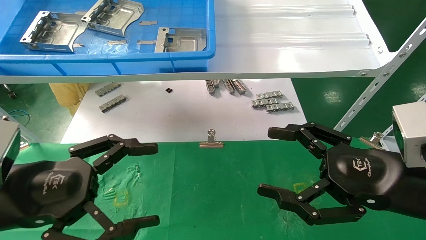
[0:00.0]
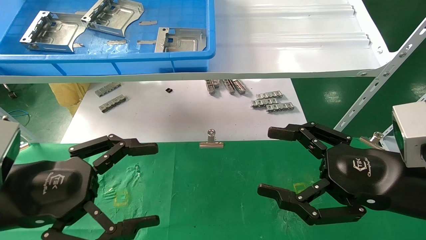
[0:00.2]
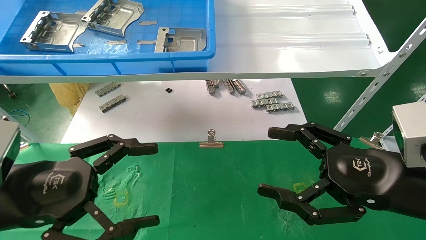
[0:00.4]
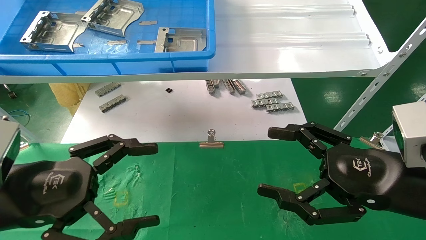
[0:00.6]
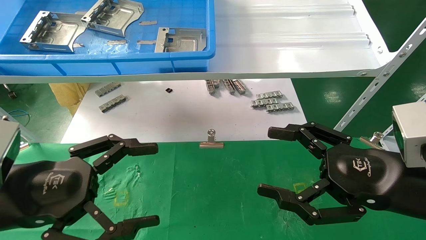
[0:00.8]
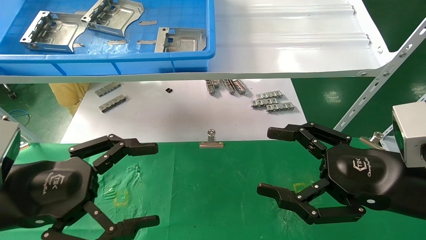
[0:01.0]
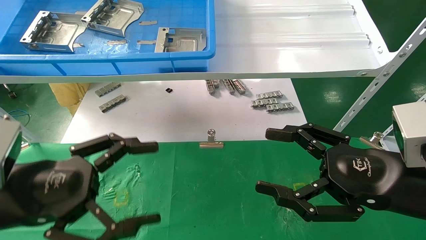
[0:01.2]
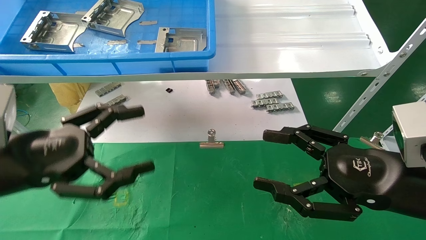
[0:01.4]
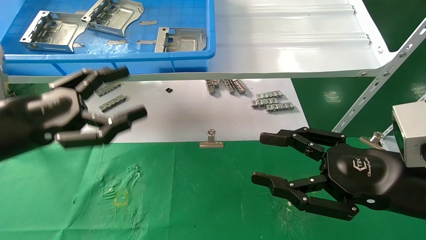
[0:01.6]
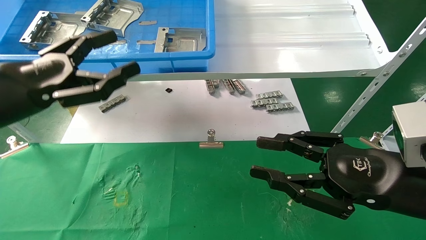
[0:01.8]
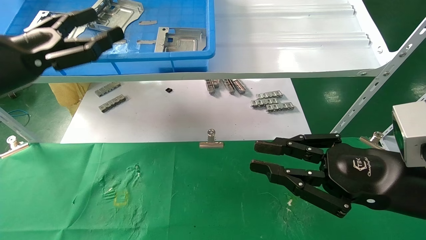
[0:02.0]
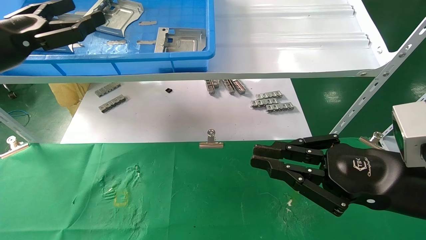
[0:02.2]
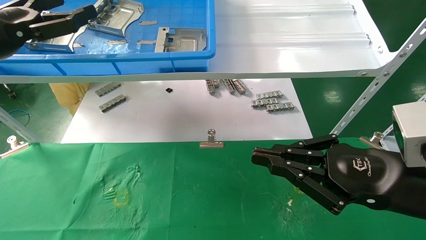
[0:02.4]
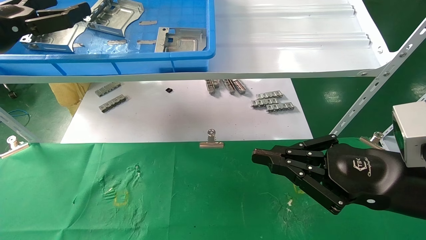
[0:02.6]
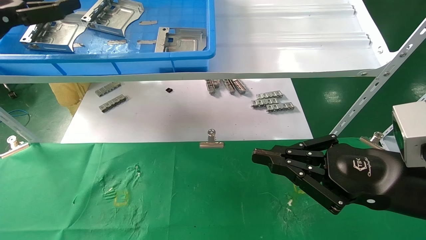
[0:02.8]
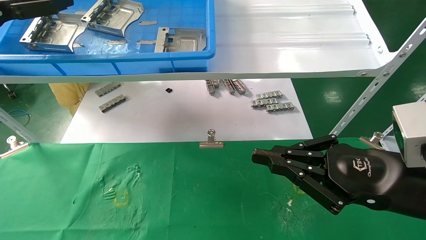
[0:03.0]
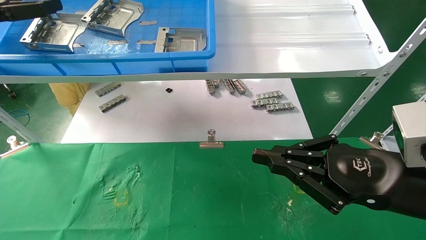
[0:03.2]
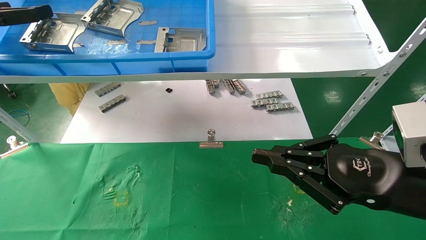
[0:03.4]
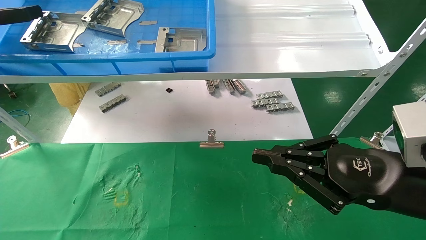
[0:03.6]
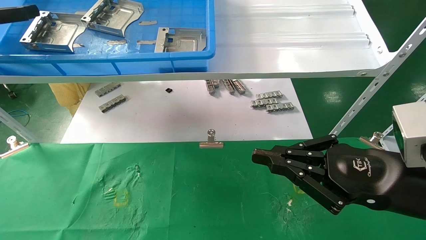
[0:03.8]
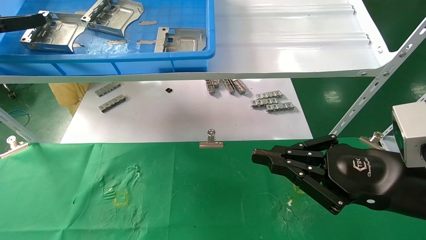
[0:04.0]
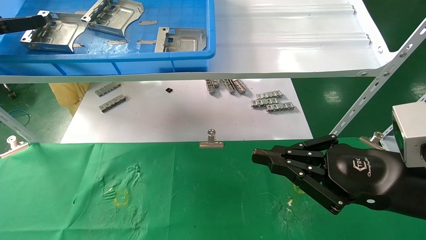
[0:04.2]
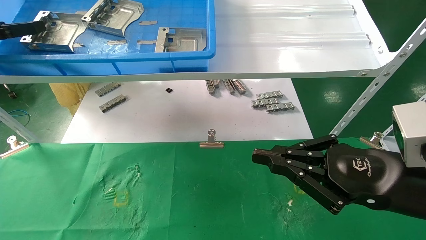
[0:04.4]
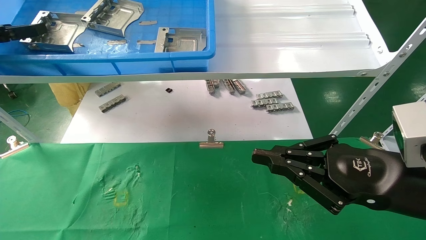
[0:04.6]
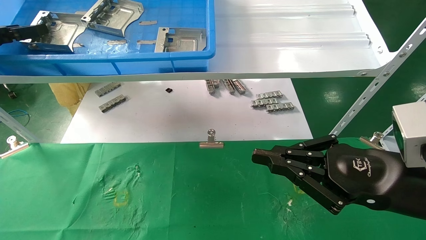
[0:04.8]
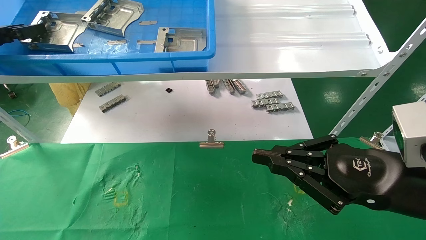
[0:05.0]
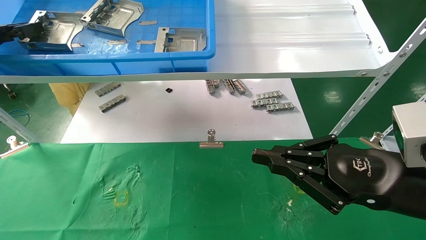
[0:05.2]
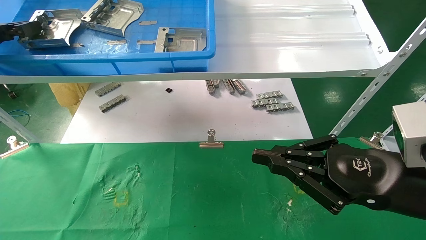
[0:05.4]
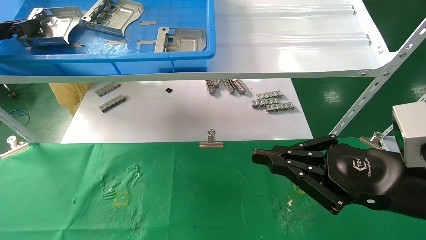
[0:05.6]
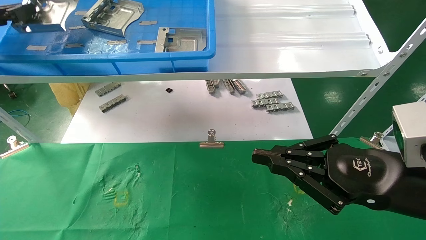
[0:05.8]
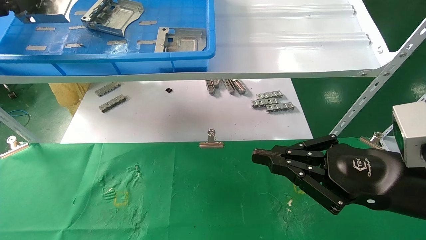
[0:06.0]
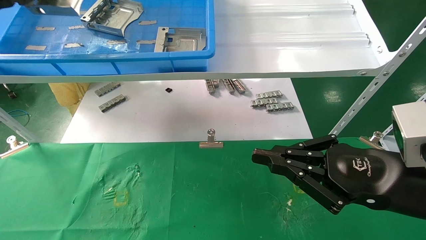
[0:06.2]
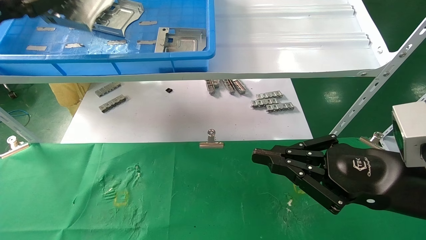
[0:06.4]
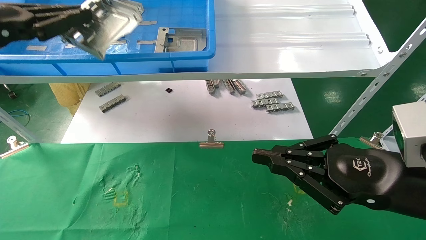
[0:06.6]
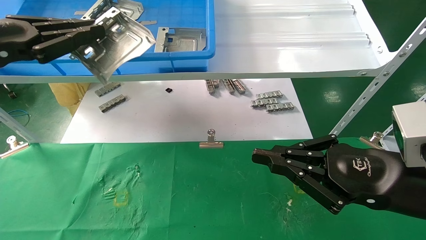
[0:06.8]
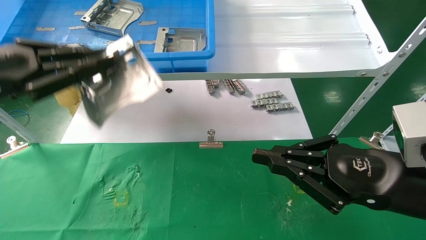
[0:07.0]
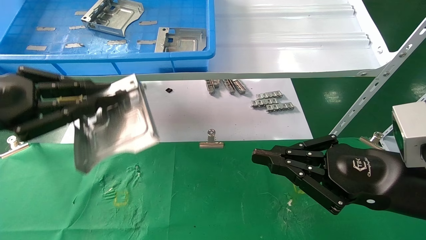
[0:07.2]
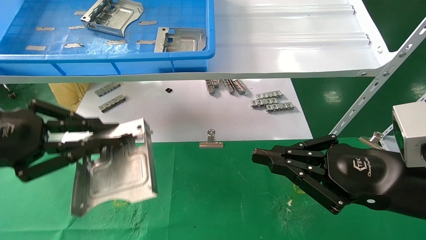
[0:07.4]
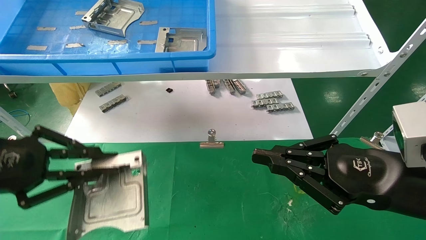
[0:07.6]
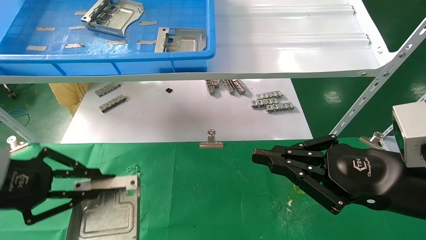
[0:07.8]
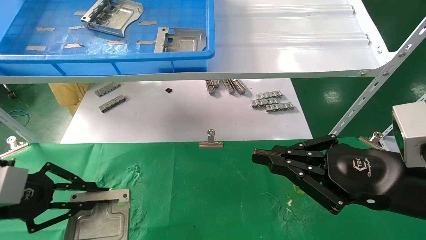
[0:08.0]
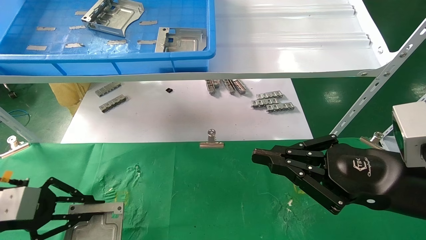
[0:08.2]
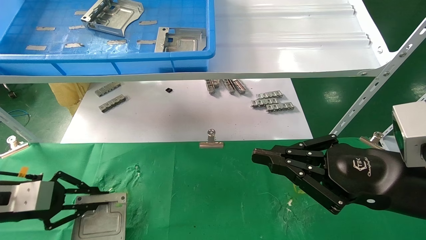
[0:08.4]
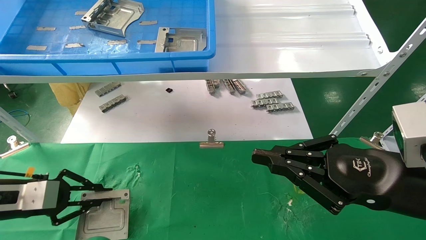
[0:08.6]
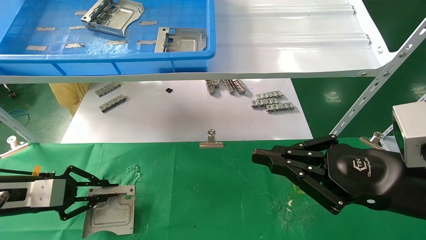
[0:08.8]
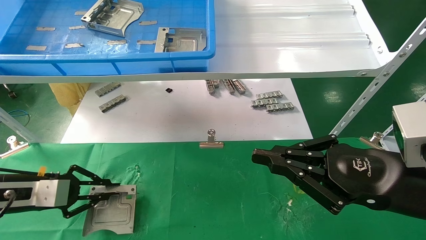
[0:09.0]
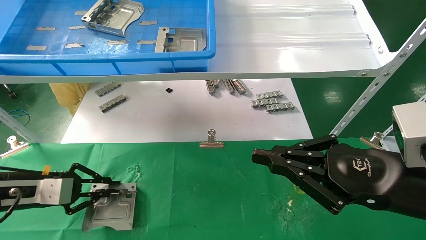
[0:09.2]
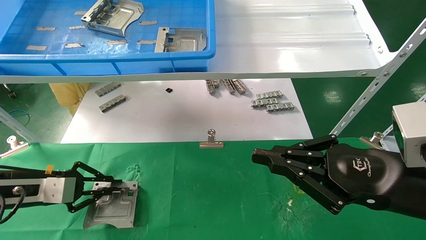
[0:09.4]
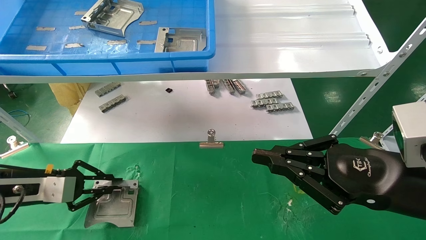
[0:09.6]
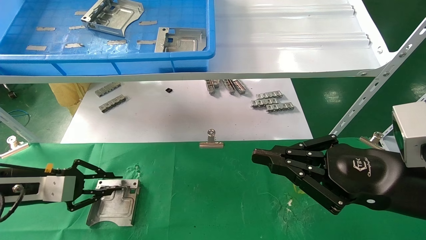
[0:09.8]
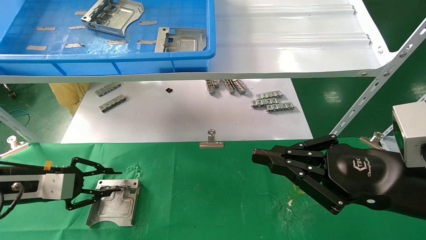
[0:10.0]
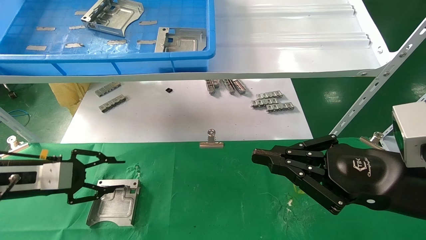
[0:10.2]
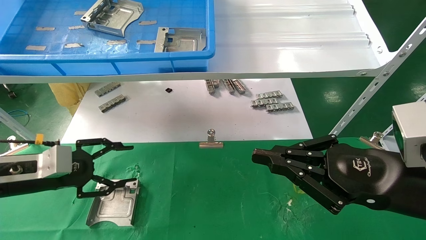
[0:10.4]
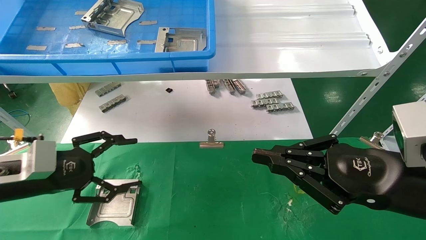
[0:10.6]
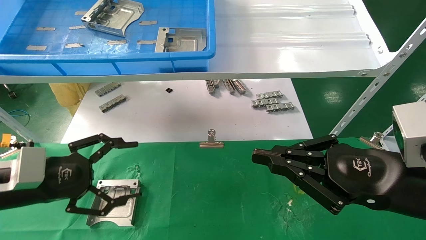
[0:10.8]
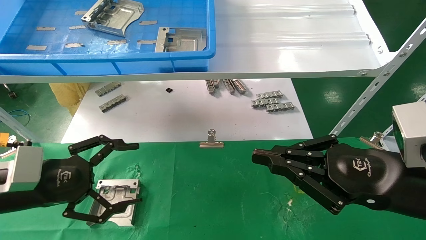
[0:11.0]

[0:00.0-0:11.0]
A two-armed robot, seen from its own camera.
Task of the whole recording: use the mechanical arm to pick up the parts and place them on the table.
Step, 0:01.6 to 0:05.4: Pick up the hard drive bracket from the feeding area.
Step, 0:05.6 to 0:09.8: Place the hard drive bracket into the box.
0:00.0 to 0:01.6: The left gripper moves upward, about 5 cm.
0:01.6 to 0:03.2: The left gripper shifts roughly 20 cm upward, to the left and forward. Meanwhile the right gripper closes its fingers.
0:03.2 to 0:04.8: The left gripper closes its fingers.
0:04.8 to 0:06.2: The left gripper ends up roughly 5 cm from where it was, and closes.
0:06.2 to 0:07.8: The left gripper heads downward, covering roughly 20 cm.
0:07.8 to 0:09.4: The left gripper moves forward and downward, approximately 15 cm.
0:09.4 to 0:11.0: The left gripper is displaced to the right and backward by roughly 10 cm, and opens.

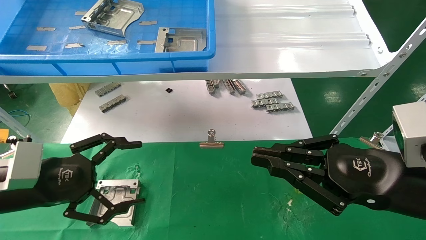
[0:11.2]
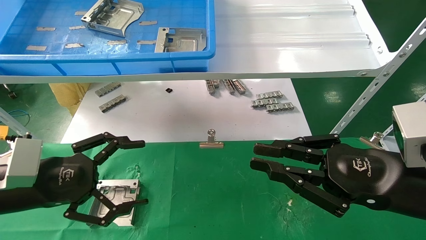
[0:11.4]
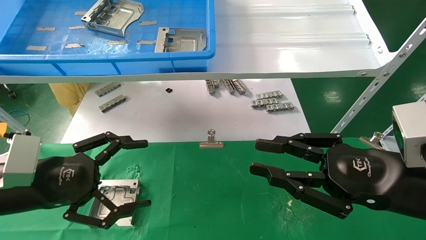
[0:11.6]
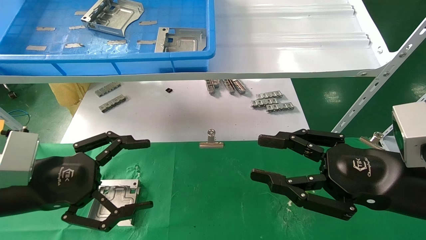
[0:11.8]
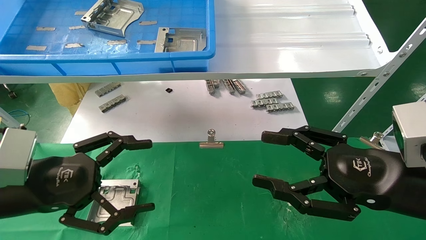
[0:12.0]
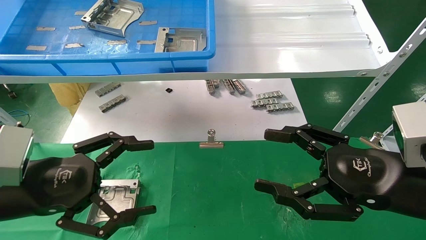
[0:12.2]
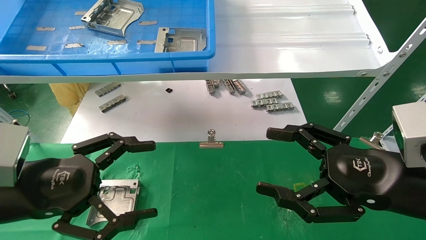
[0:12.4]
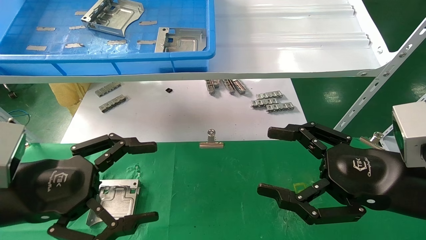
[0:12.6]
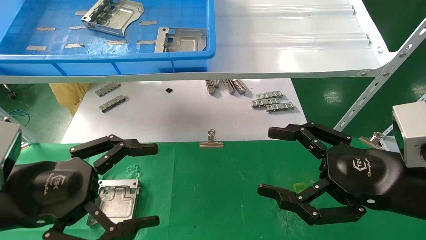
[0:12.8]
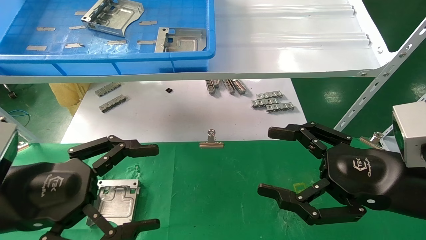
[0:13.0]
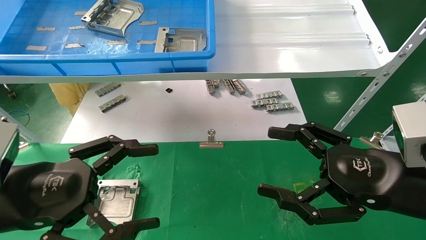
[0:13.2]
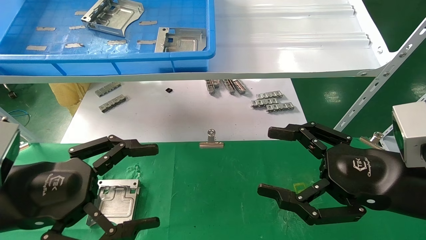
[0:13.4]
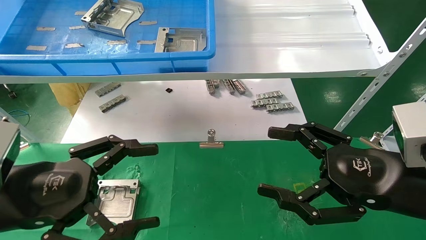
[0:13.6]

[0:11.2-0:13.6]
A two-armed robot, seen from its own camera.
Task of the whole recording: use the mechanical arm to pick up the parts and place them on the table.
0:11.2 to 0:12.4: The right gripper opens its fingers; the left gripper ends up about 5 cm from where it was.
0:12.4 to 0:13.6: The grippers move only a little.

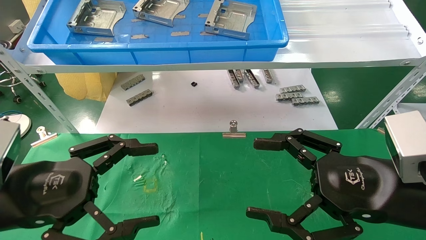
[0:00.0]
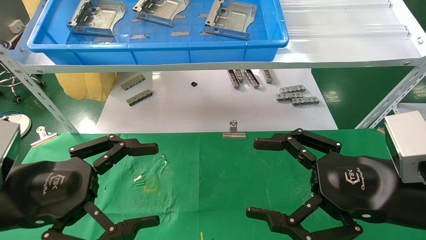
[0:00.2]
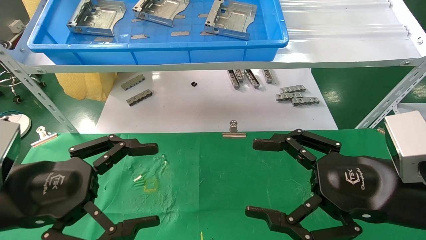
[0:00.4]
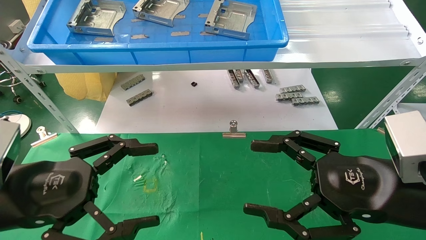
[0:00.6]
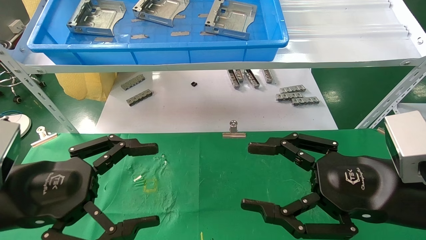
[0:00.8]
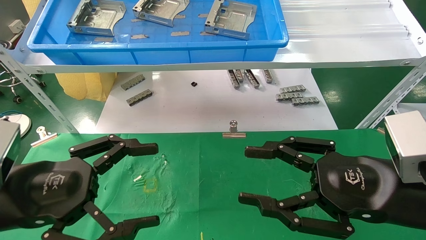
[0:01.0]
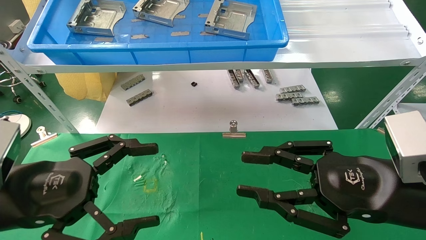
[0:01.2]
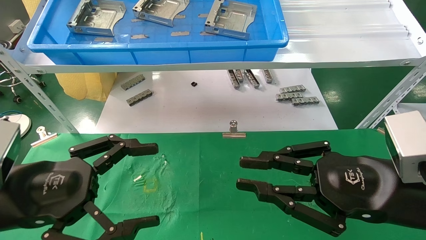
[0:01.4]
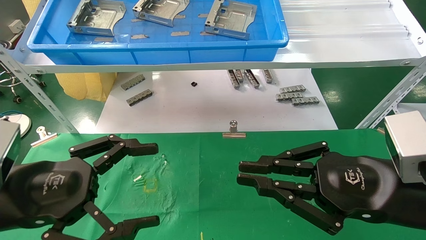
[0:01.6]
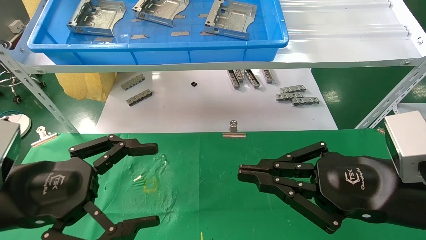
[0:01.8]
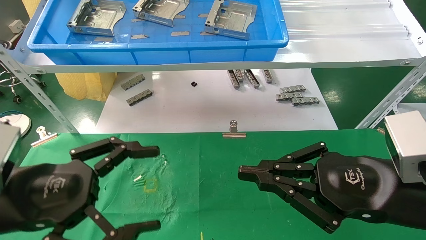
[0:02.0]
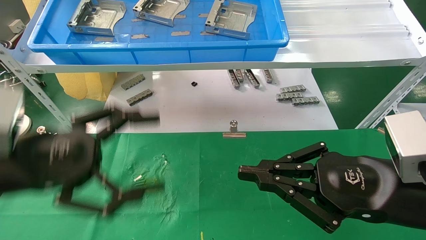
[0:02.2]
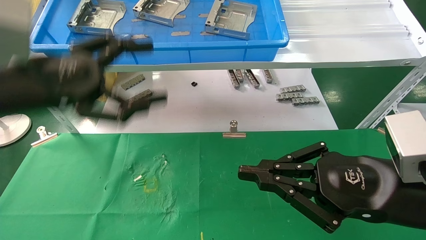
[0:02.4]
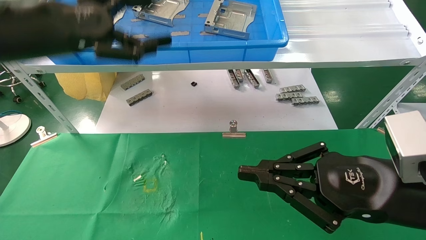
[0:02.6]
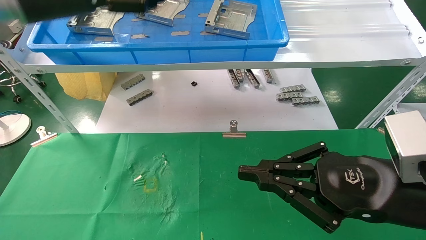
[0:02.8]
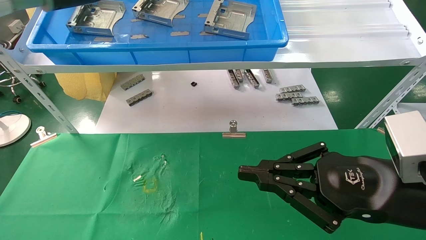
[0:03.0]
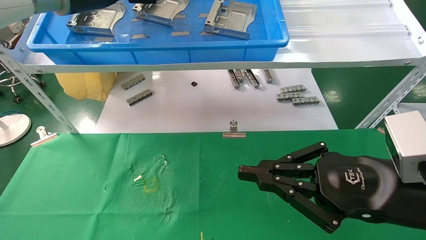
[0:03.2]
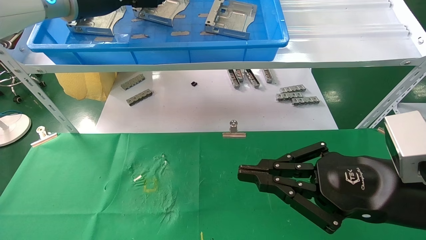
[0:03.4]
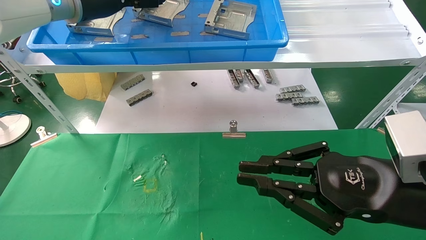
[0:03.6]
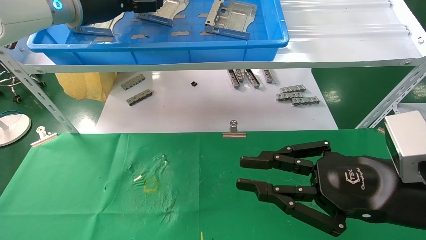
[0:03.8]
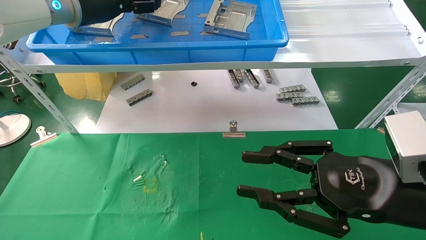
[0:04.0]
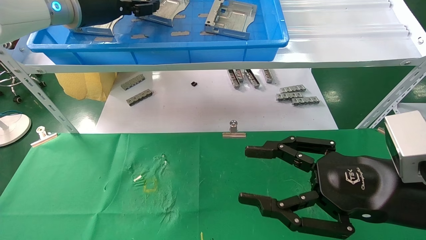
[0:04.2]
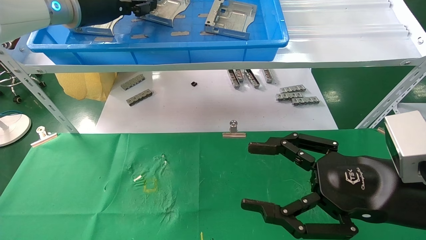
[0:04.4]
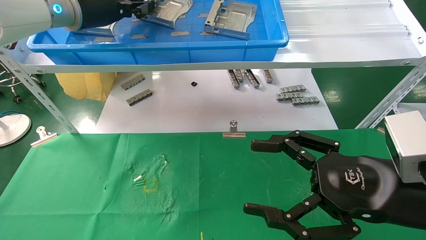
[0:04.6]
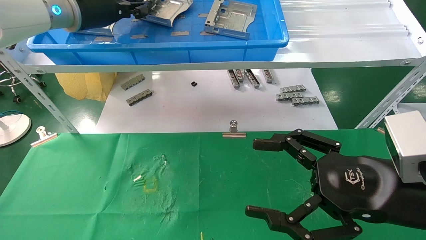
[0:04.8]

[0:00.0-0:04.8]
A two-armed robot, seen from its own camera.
Task of the whole recording: use the mechanical arm to pick up the parts and place them on the table.
Step, 0:01.6 to 0:04.8: Pick up the hard drive bracket from the feeding area.
0:00.0 to 0:01.6: The right gripper closes its fingers.
0:01.6 to 0:03.2: The left gripper travels upward and forward by about 35 cm.
0:03.2 to 0:04.8: The left gripper closes; the right gripper opens its fingers.
